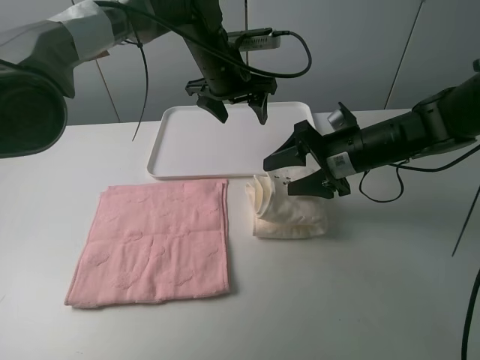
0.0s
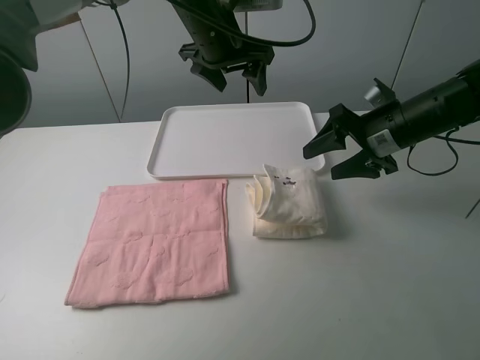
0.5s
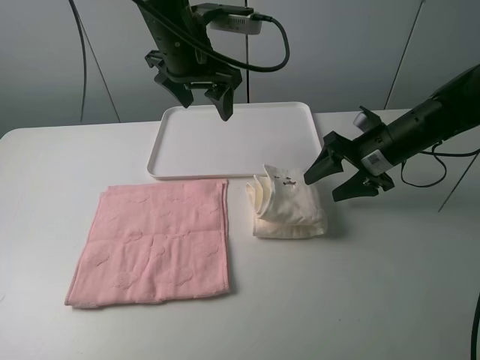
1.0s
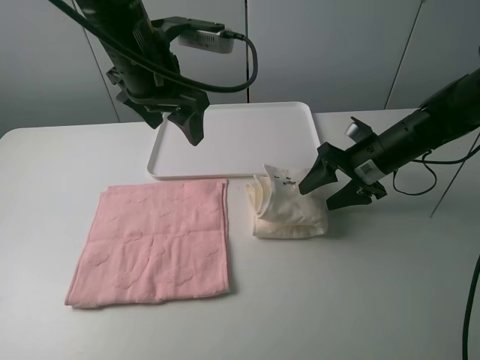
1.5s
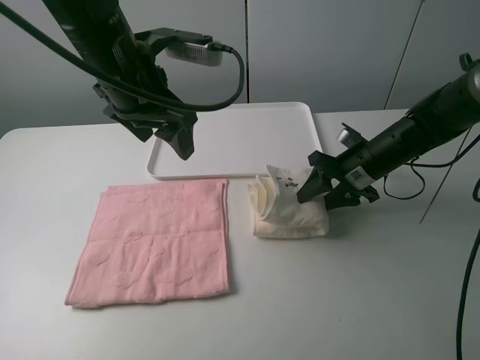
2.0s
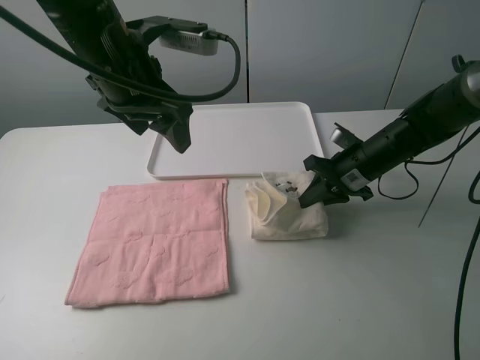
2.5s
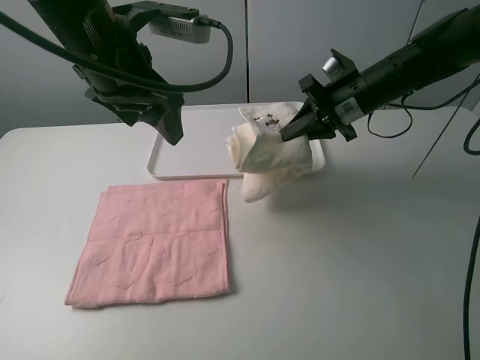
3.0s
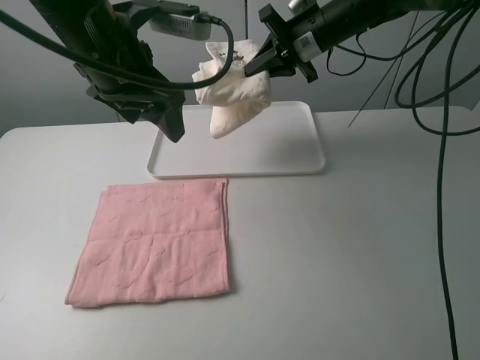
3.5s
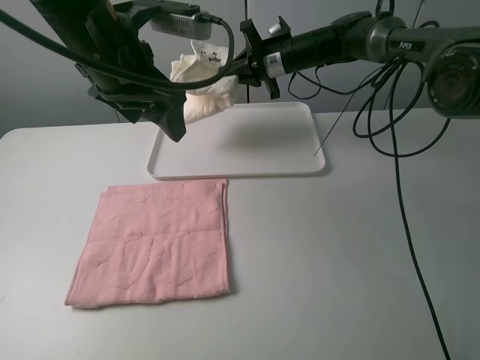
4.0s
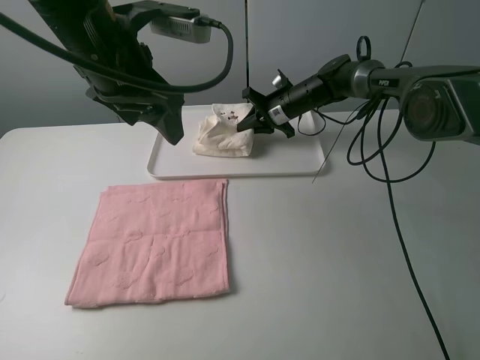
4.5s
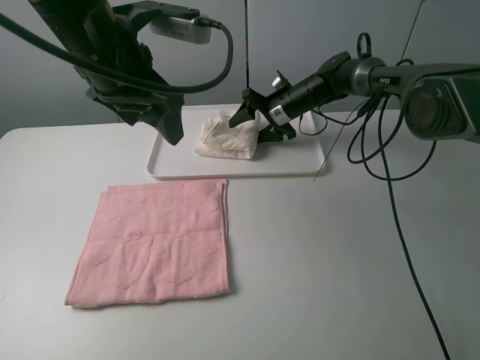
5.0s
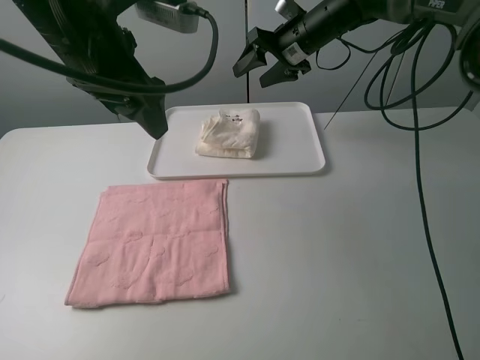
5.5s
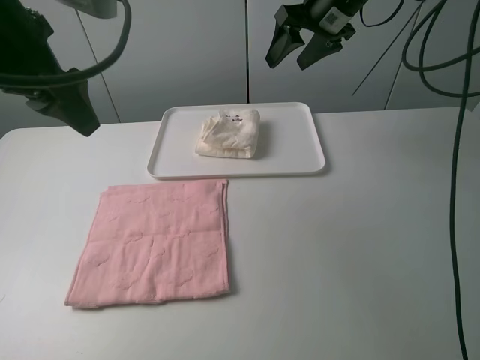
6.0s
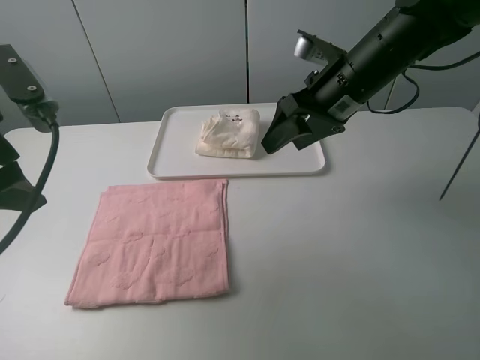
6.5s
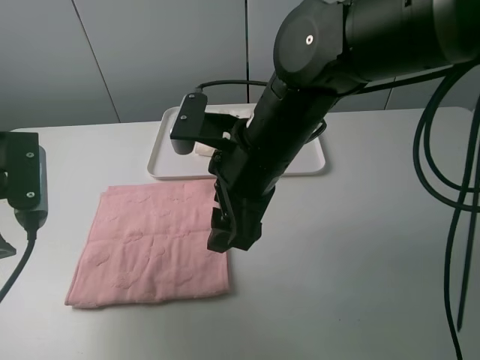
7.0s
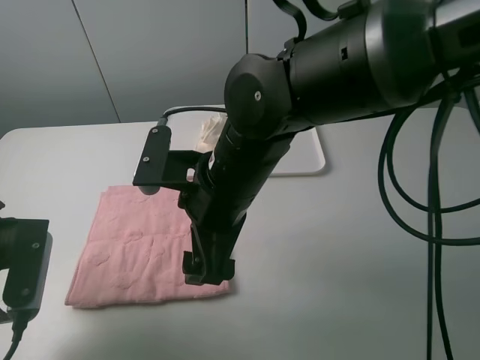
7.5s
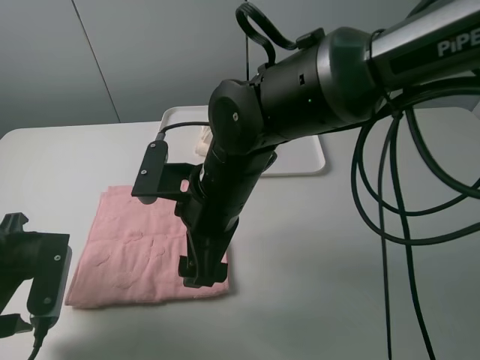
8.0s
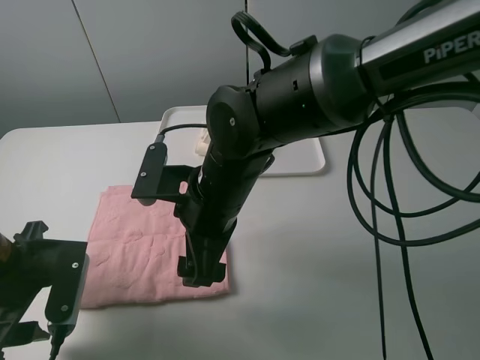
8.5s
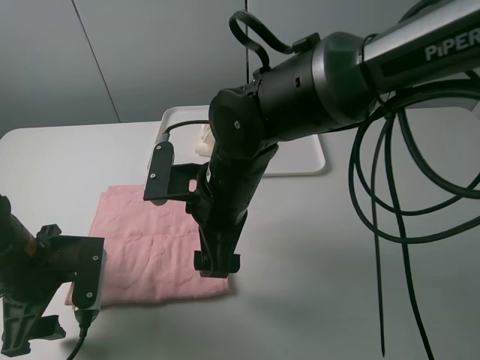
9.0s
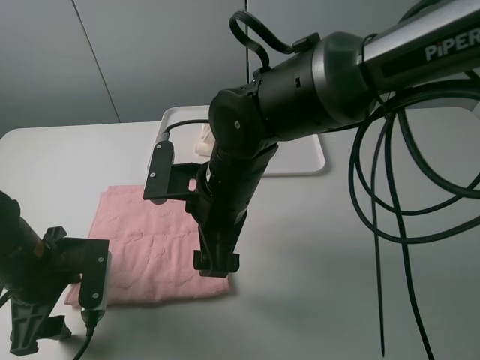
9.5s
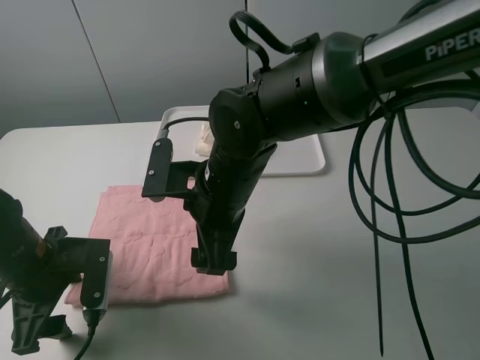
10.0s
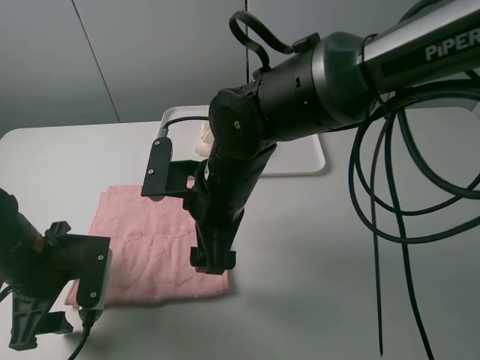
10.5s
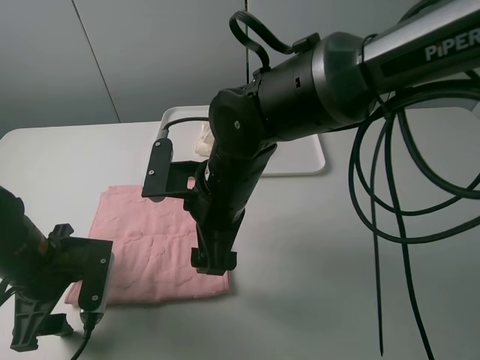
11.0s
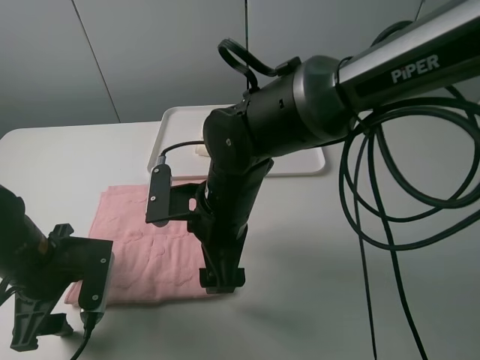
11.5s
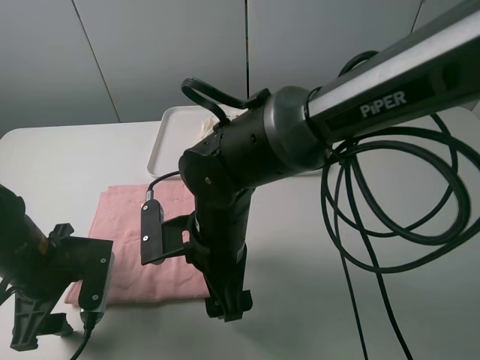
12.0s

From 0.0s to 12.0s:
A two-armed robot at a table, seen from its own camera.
Task of the whole recording: fold one of the towels by two grippers and place it on the tray,then fold another towel by two grippers and place it on the folded towel.
Step, from 0.5s to 2.0s: Grasp the white towel with the right gripper.
Step, from 2.5s to 5.0s: Move the white towel to the plate with the right gripper.
From 0.0s to 2.0s: The left gripper travels backward, to the left and upward by some 15 cm, while the right gripper ends up about 5 cm from where it was.
From 2.0s to 4.0s: The right gripper is displaced forward, to the left and upward by some 20 cm, and closes its fingers.
From 4.0s to 6.0s: The right gripper moves upward, backward and to the right, approximately 15 cm, and opens its fingers; the left gripper moves to the left, roughly 10 cm.
From 6.0s to 8.0s: The right gripper shifts roughly 30 cm backward, to the left and downward. Meanwhile the left gripper moves downward and backward, some 20 cm.
From 8.0s to 10.0s: The left gripper ends up approximately 5 cm from where it was.
From 10.0s to 12.0s: The right gripper changes place by some 5 cm.

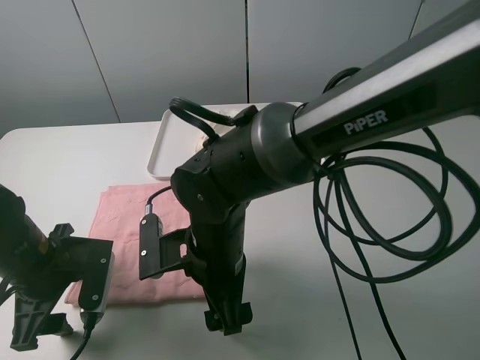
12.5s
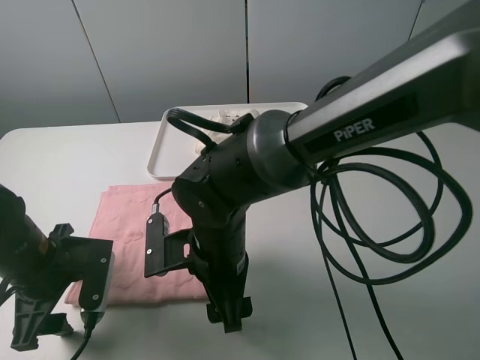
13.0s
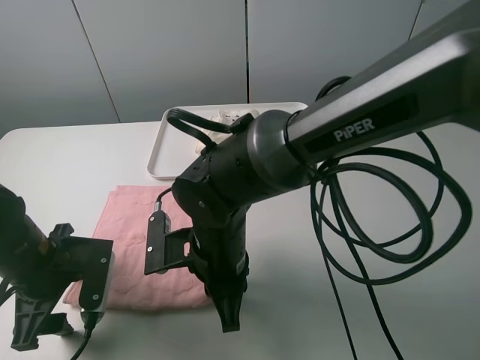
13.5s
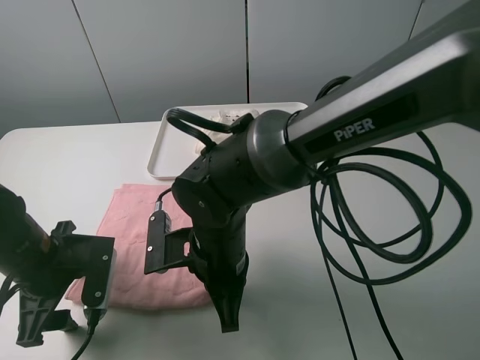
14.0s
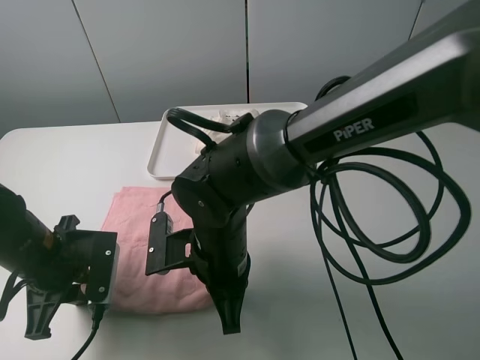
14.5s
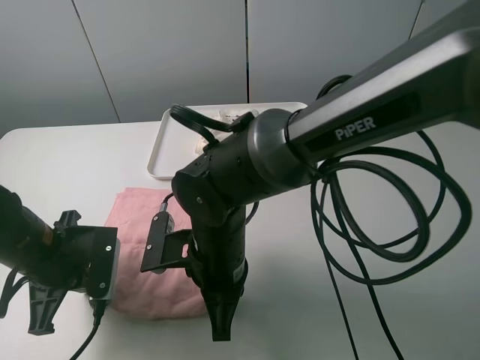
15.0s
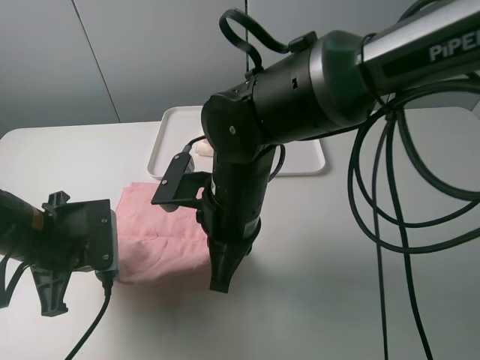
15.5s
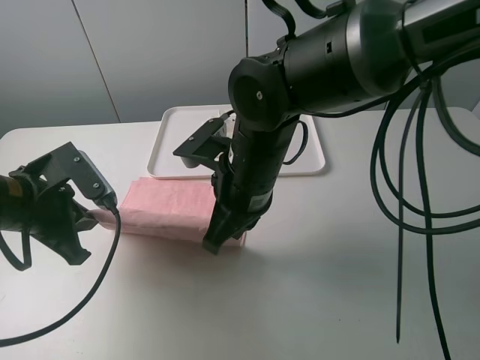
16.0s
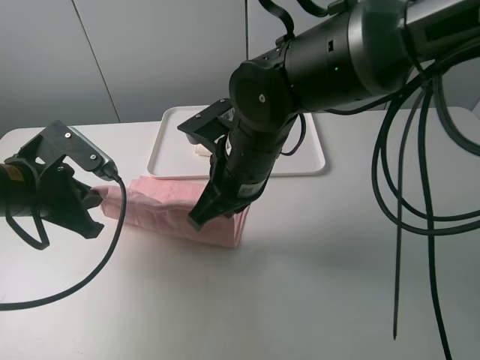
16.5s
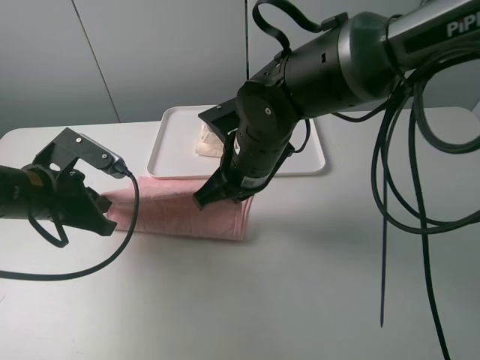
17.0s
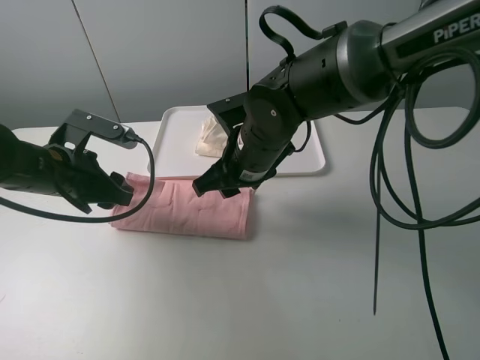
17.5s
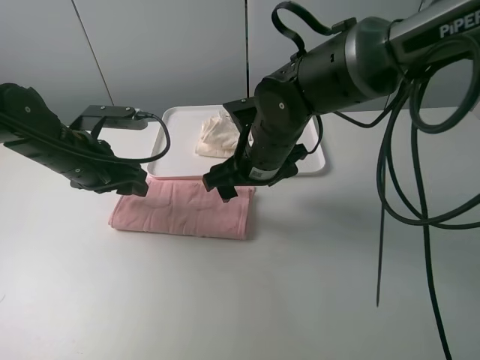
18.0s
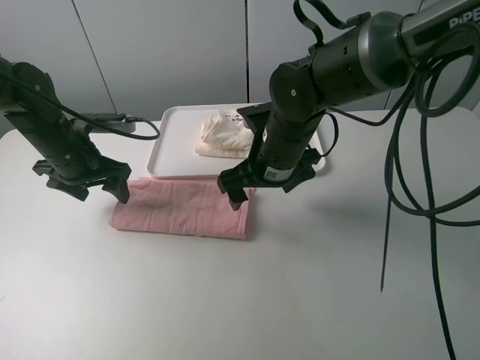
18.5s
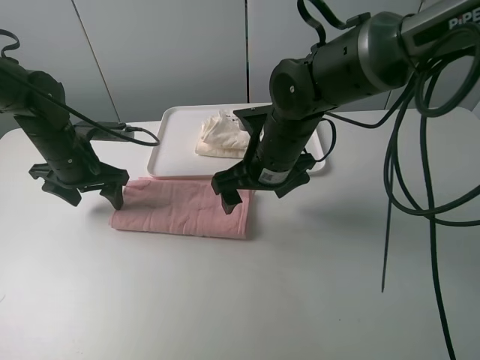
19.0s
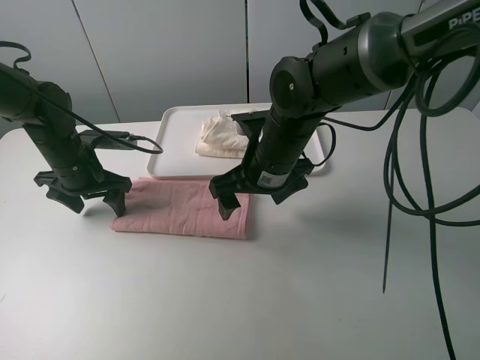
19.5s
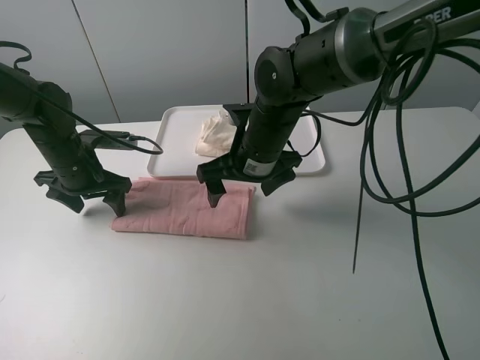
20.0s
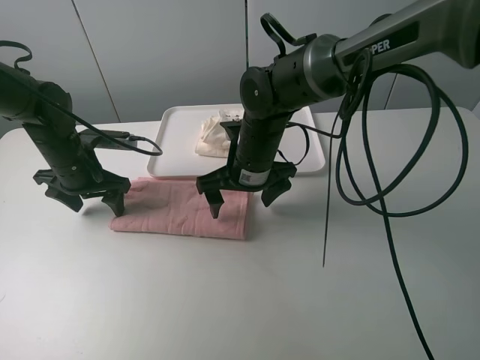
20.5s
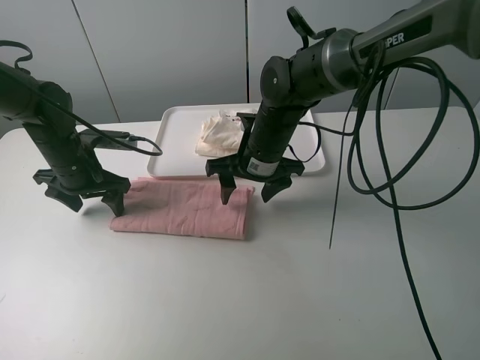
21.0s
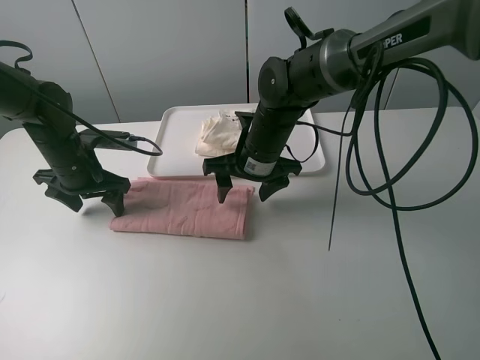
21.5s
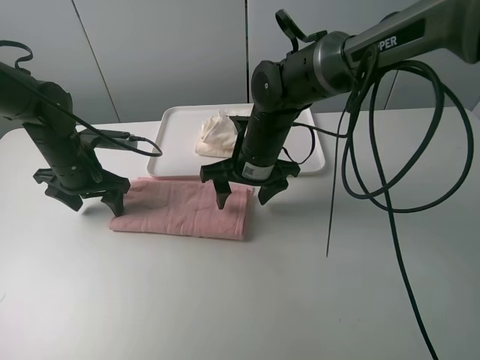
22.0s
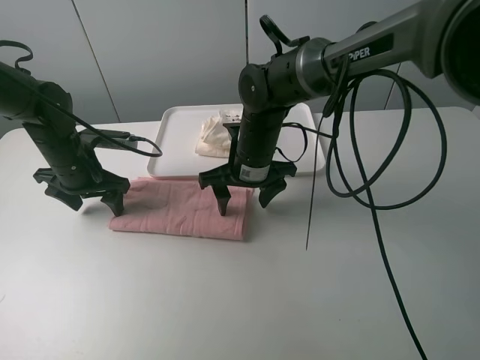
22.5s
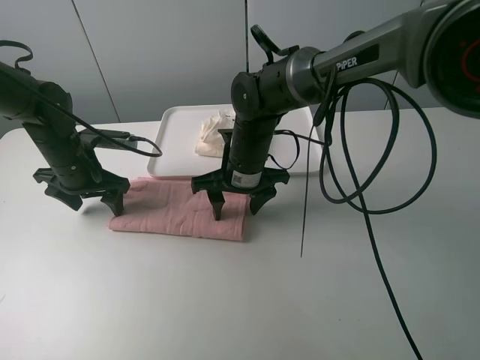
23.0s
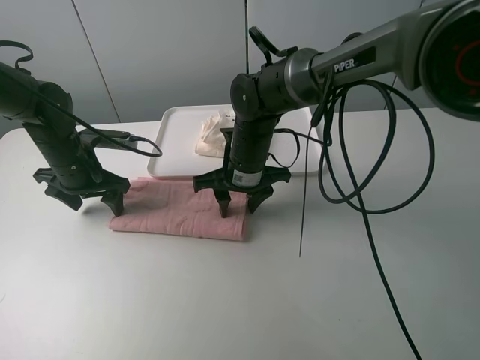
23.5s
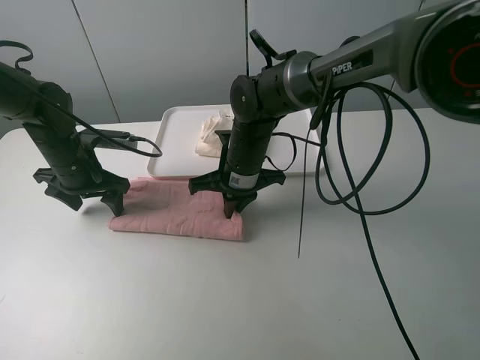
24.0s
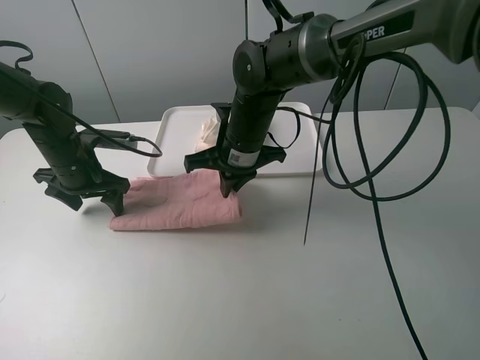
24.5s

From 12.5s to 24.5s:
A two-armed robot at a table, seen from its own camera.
Task of the whole recording: fold one of the towels by two grippers and place it on the tray,then fold another towel by two grippers and place it on the folded towel.
Step, from 12.5s to 14.5s: Grasp the pink towel with the left gripper.
Step, from 15.0s to 17.5s: Fold the pink towel upwards with the left gripper.
Step, from 18.0s to 20.0s: Press the pink towel with the left gripper.
Step, from 20.5s to 23.5s: Grasp the pink towel with the right gripper.
From 12.5s to 14.5s: The left gripper closes its fingers; the right gripper closes.
From 14.5s to 16.5s: The right gripper is displaced upward and forward by some 10 cm, while the left gripper moves upward, approximately 5 cm.
From 16.5s to 18.5s: The left gripper travels forward by some 10 cm, and opens its fingers, while the right gripper is displaced forward by roughly 5 cm, and opens its fingers.
From 20.5s to 22.5s: The grippers move only a little.
From 22.5s to 24.5s: The right gripper closes.

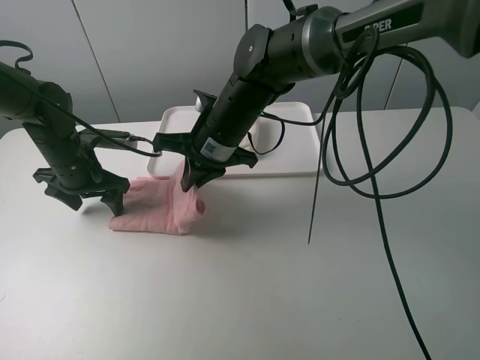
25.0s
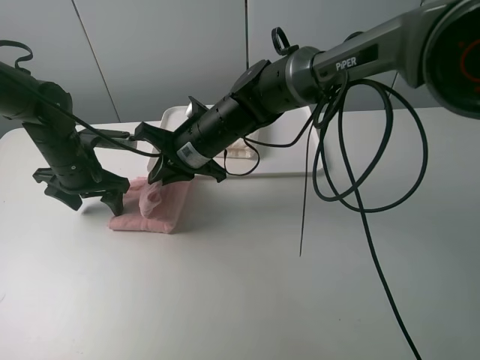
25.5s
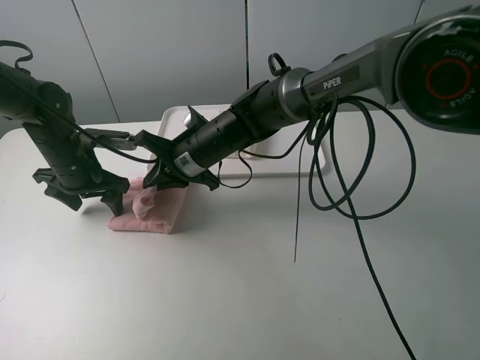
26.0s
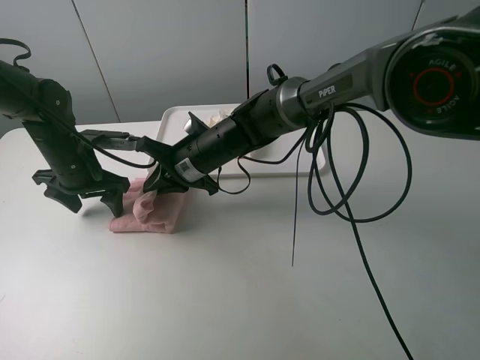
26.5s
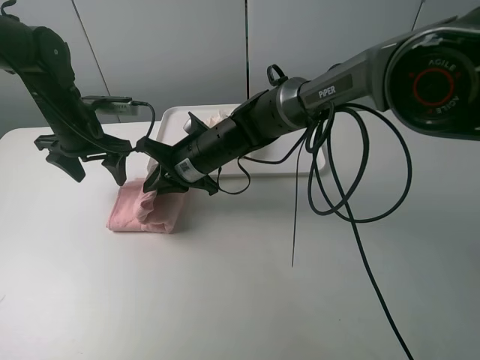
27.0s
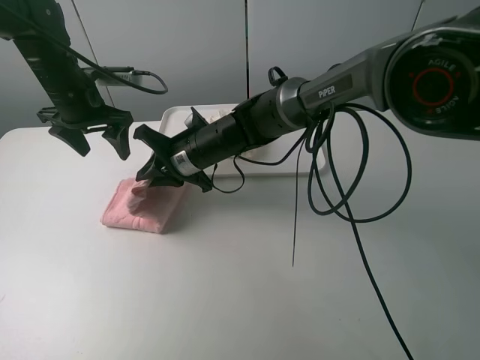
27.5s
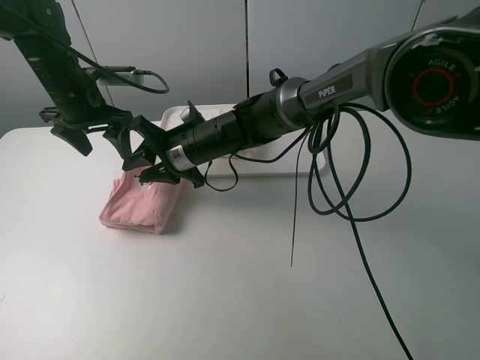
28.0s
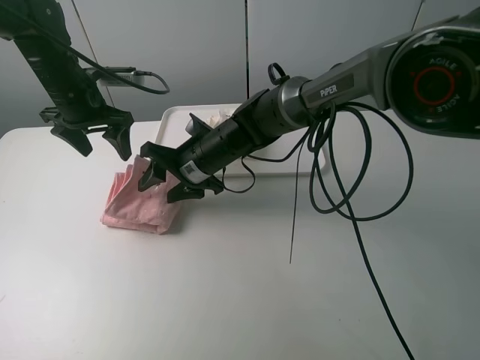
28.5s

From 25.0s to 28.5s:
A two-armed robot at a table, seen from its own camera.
Task of the whole recording: fold one of the towels by two grippers and place it on the tray,then fold another towel by two grippers and place it on the folded towel.
Step, from 25.0s to 28.0s: Fold the pink towel from right to left with right gripper.
From 25.0s to 27.0s: The right gripper moves downward, some 5 cm; the left gripper goes roughly 5 cm upward.
From 27.0s to 28.5s: The right gripper opens its fingers.
